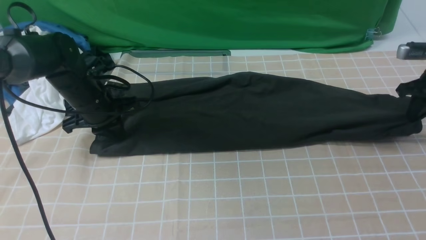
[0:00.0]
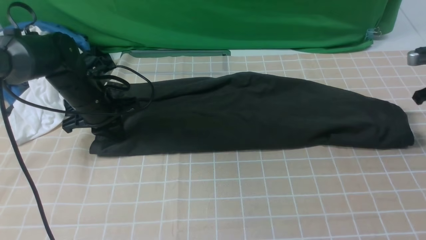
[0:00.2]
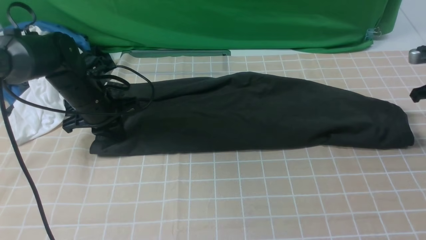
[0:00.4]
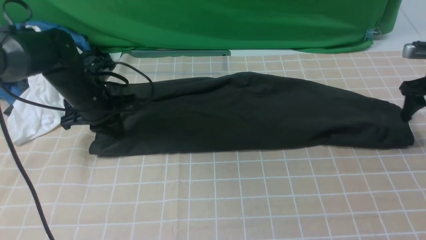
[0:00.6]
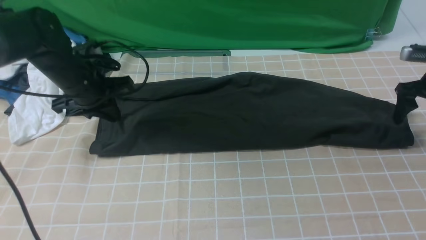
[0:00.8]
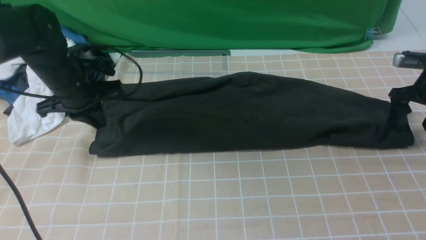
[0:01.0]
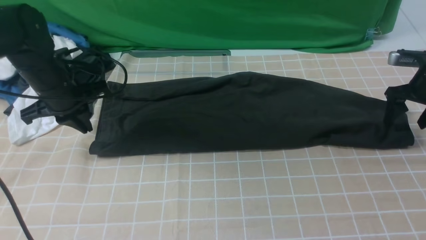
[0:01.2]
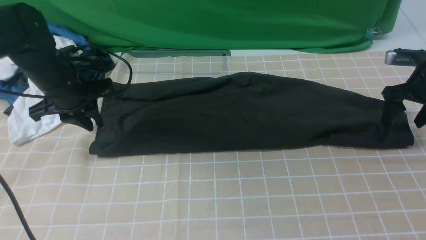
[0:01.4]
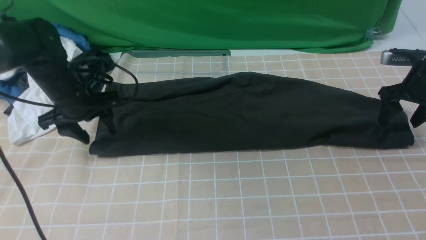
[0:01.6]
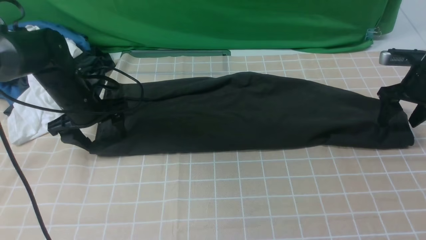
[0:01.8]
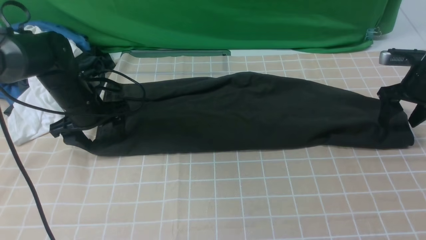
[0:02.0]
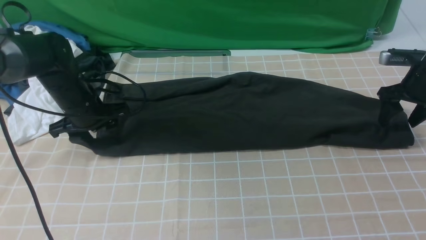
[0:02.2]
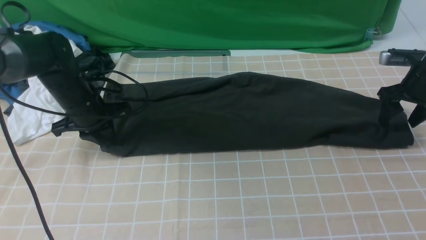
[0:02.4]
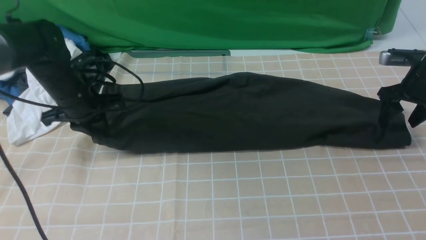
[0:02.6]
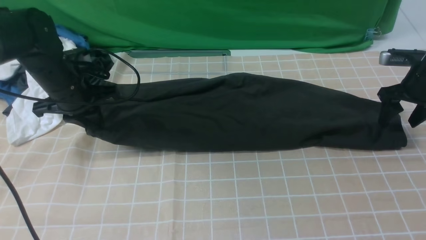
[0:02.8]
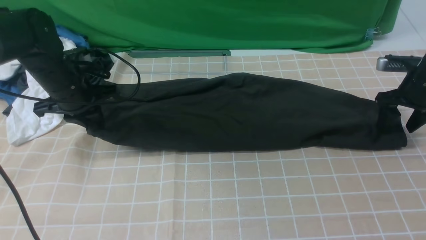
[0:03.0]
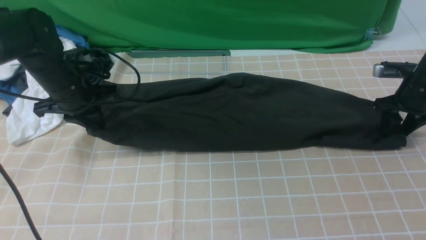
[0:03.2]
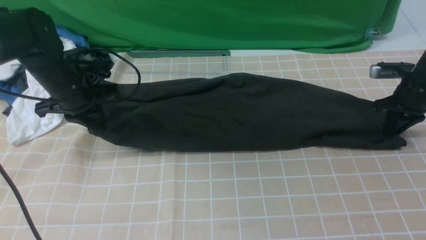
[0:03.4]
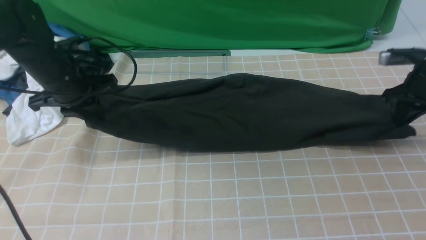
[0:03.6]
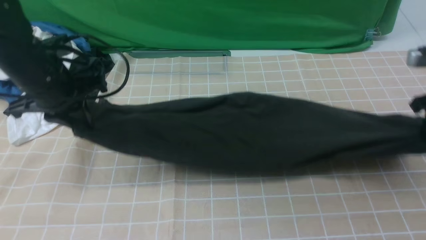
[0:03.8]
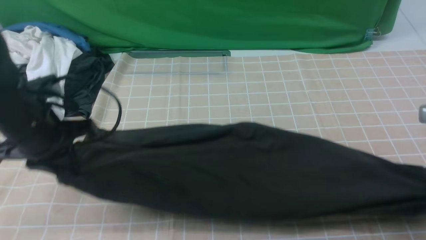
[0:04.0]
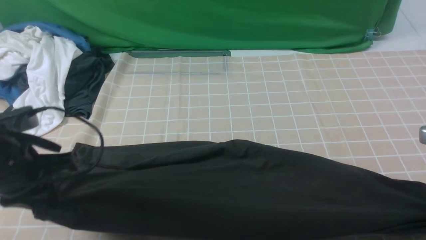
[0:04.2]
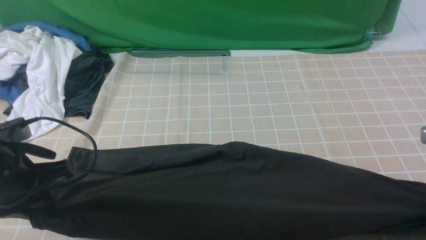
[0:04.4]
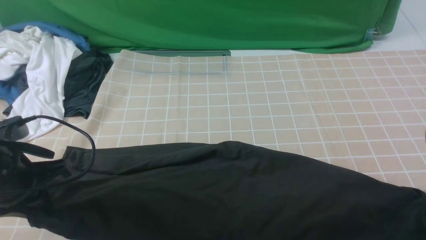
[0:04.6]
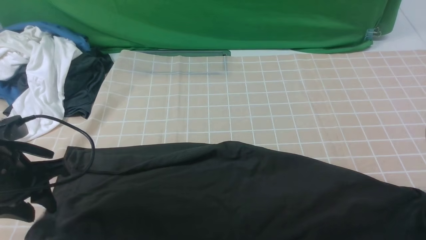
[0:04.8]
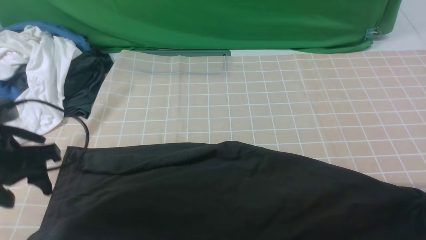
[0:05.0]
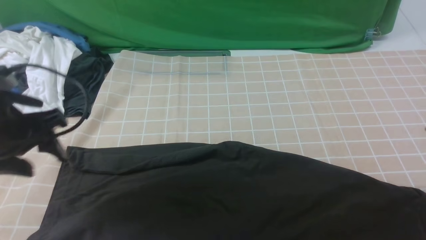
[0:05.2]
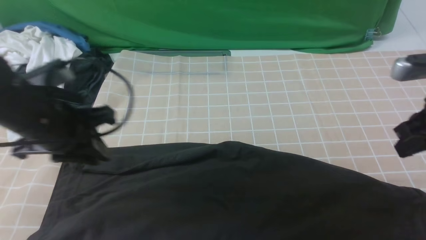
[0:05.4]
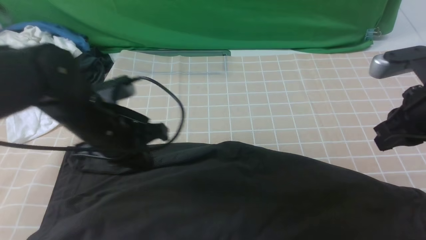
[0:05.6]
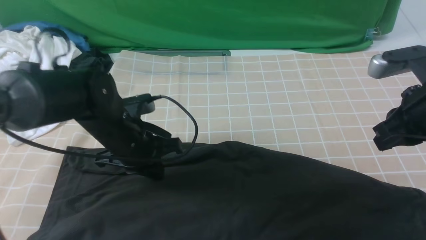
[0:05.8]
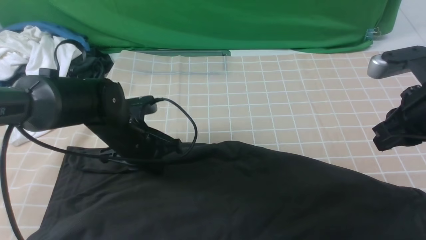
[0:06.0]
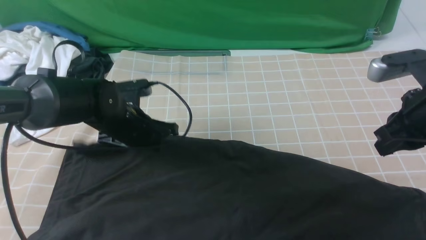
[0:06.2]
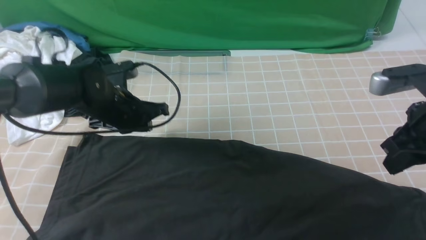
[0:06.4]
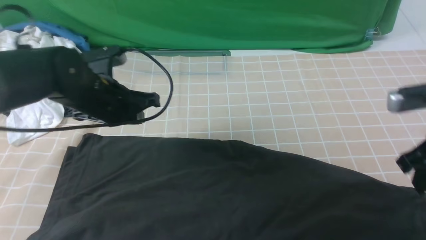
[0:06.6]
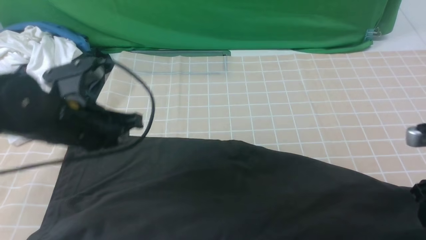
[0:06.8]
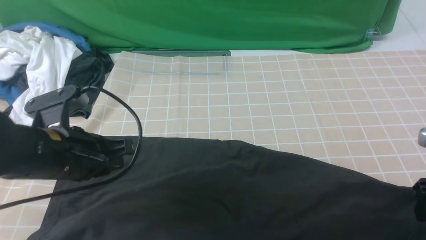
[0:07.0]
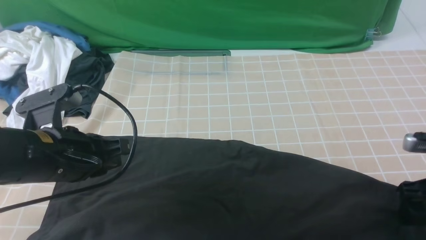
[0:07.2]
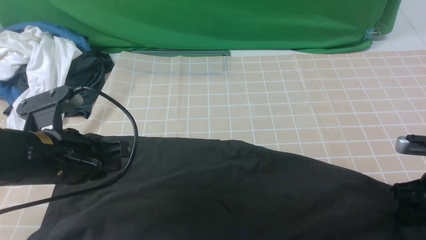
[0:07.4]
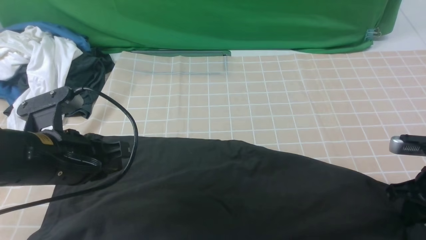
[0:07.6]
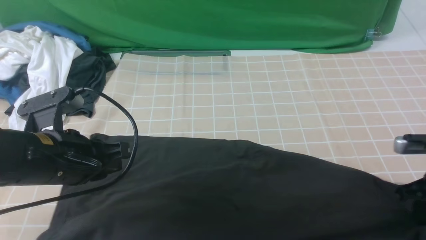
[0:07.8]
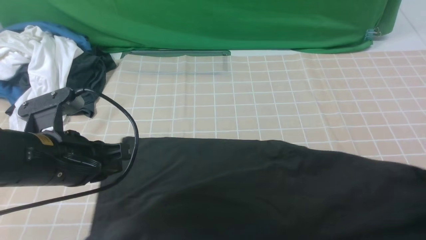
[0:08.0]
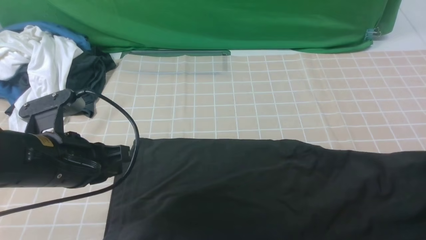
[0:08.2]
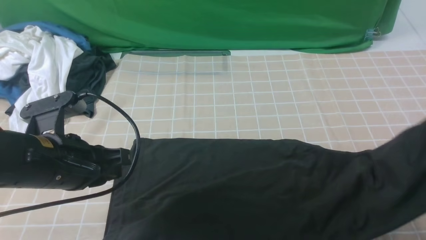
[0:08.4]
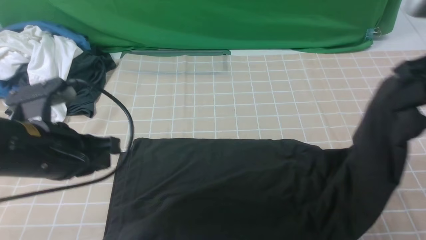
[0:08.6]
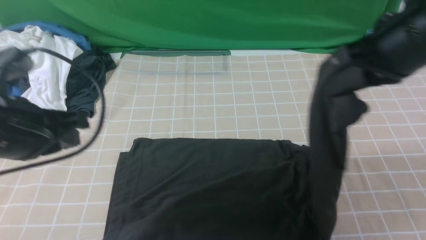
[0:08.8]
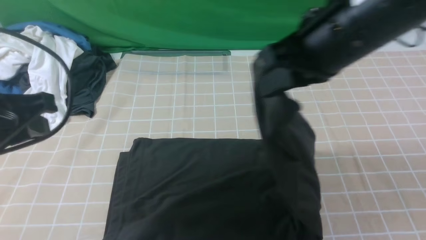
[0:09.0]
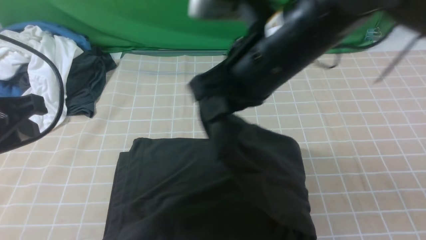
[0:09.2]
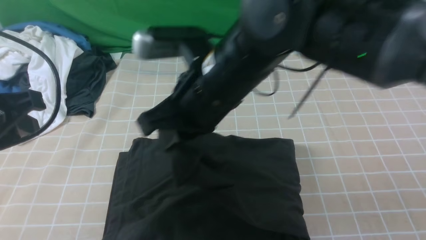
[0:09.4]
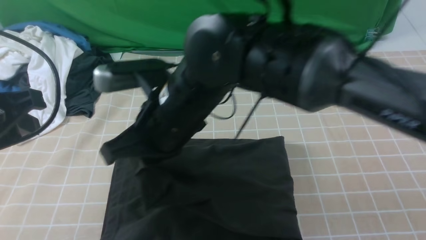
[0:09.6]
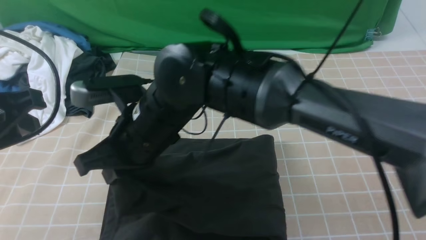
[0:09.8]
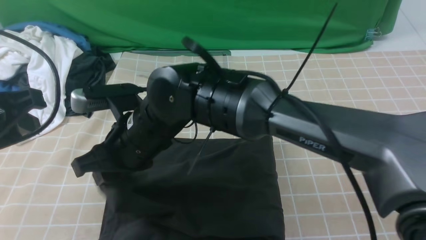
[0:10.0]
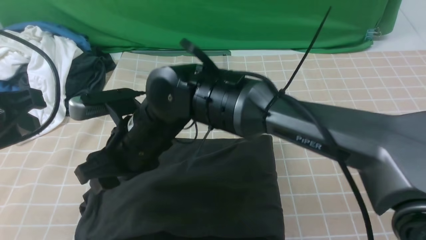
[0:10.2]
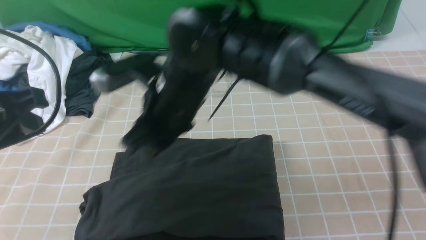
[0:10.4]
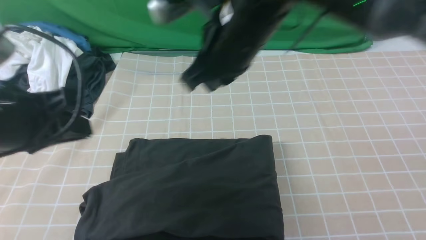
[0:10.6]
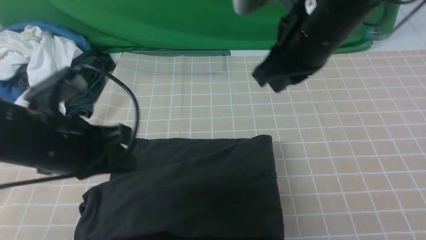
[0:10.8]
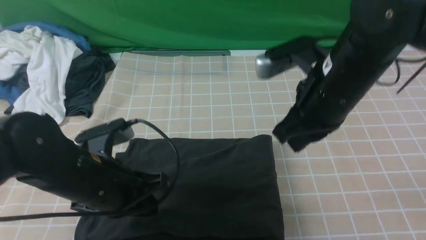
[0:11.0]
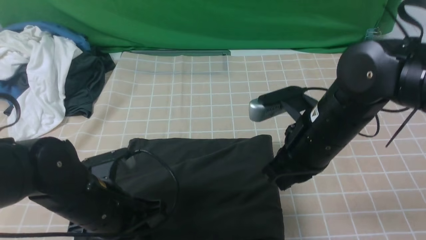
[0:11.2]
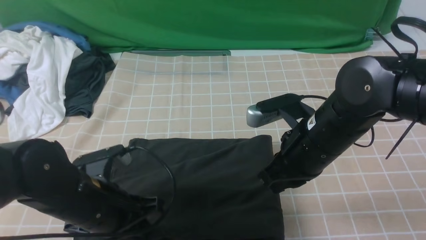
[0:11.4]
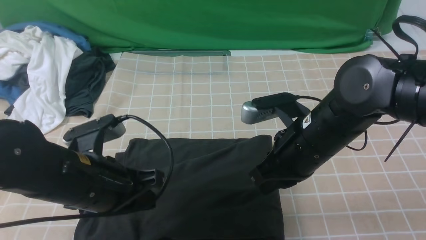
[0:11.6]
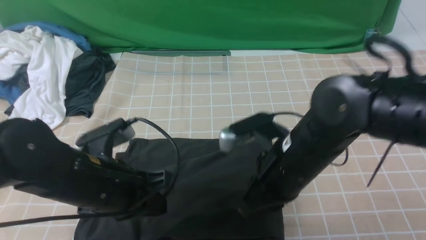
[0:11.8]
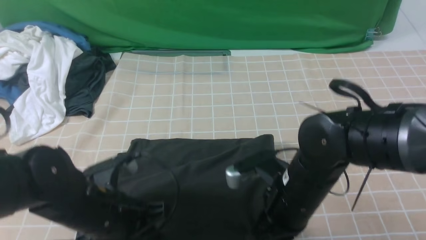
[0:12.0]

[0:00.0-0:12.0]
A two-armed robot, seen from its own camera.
Step, 0:00.0 to 0:07.8: use the right arm to clamp the right edge of the fabric.
Step, 0:08.2 to 0:10.0: use the right arm to drag the right edge of the fabric to the left and folds it over the left edge.
0:00.0 to 0:01.6: The right gripper opens up. Meanwhile the left gripper opens up.
0:01.6 to 0:03.0: The left gripper closes its fingers.
0:03.0 to 0:04.4: Both grippers travel together backward, about 20 cm. The right gripper closes its fingers.
0:04.4 to 0:06.0: The left gripper is displaced to the right, forward and downward by some 20 cm, and opens, then closes once more. Meanwhile the right gripper moves to the left and upward, about 15 cm, and opens, then closes once more.
0:06.0 to 0:07.6: The left gripper is displaced backward, upward and to the left by some 15 cm; the right gripper moves downward and to the right, approximately 15 cm, and opens, then closes again.
0:07.6 to 0:09.0: The left gripper shifts roughly 10 cm upward and to the left. The right gripper goes about 30 cm to the left and upward.
0:09.0 to 0:10.4: The right gripper heads to the left and downward, covering roughly 15 cm.
0:10.4 to 0:12.0: The right gripper shifts some 20 cm to the right, downward and backward. Meanwhile the left gripper goes about 20 cm downward and to the right.

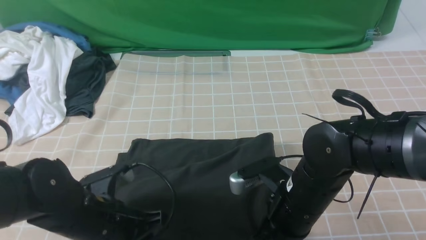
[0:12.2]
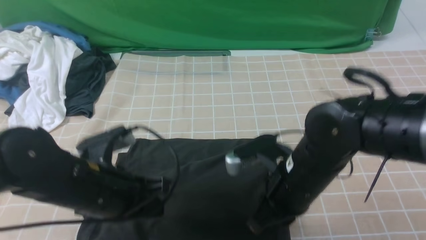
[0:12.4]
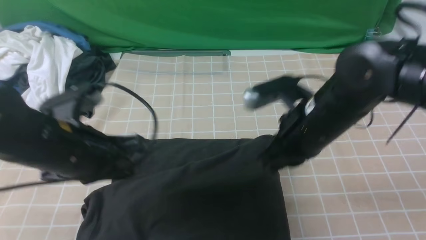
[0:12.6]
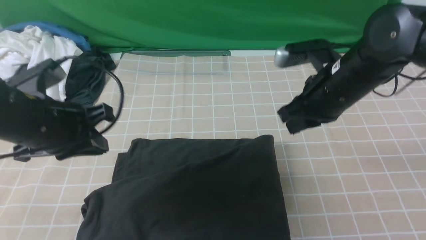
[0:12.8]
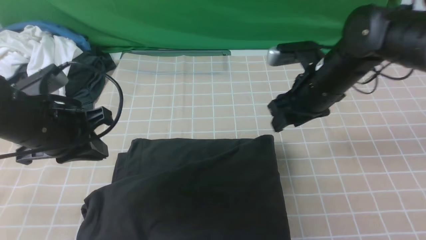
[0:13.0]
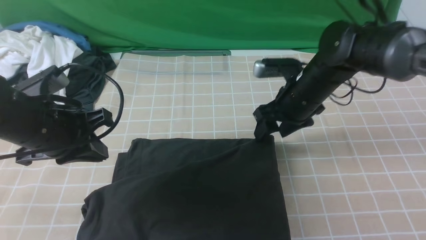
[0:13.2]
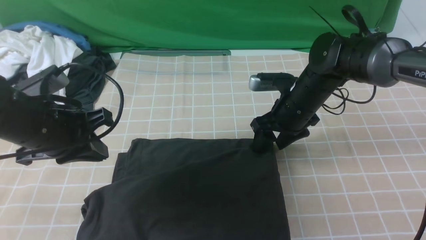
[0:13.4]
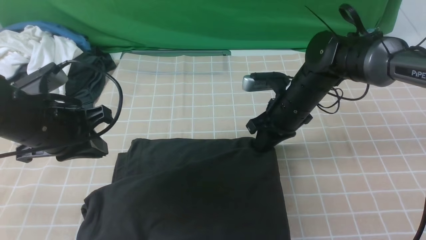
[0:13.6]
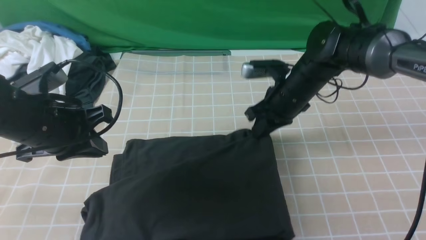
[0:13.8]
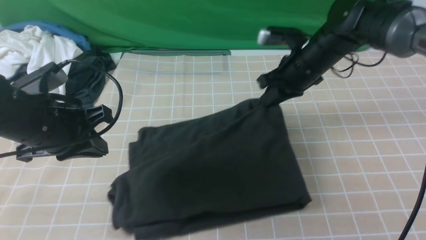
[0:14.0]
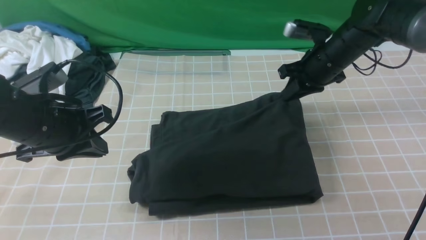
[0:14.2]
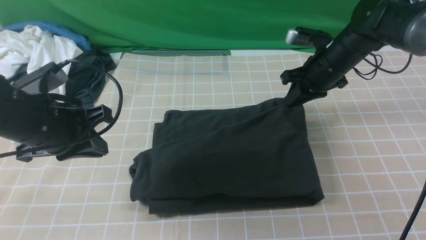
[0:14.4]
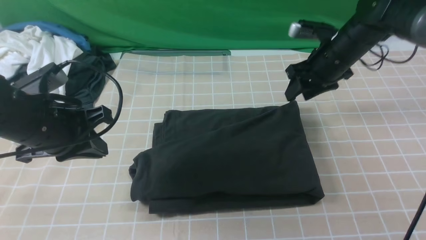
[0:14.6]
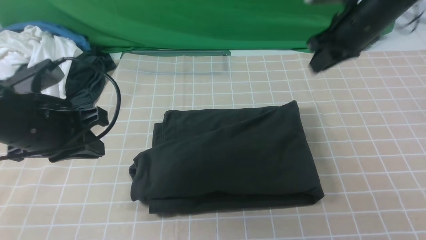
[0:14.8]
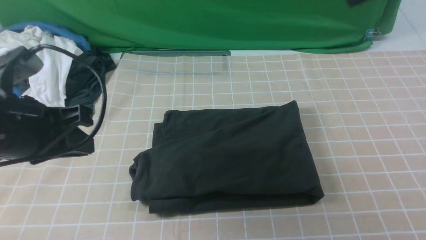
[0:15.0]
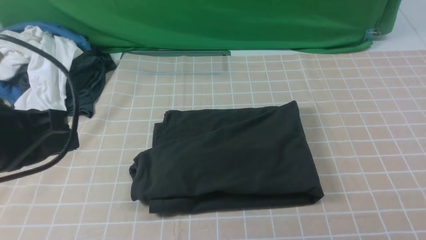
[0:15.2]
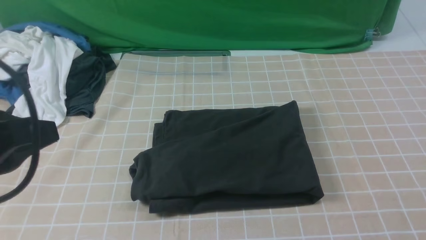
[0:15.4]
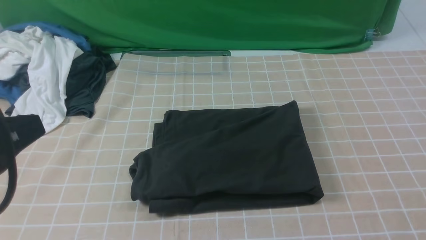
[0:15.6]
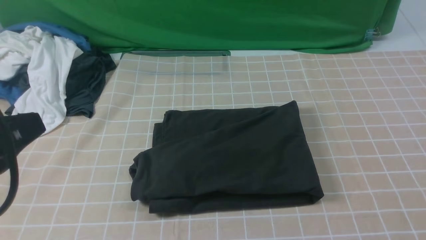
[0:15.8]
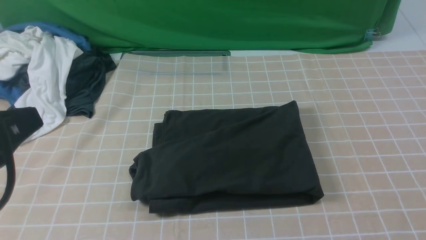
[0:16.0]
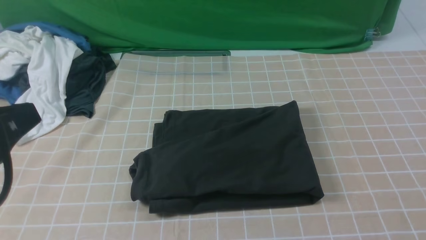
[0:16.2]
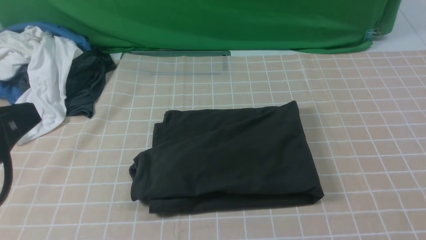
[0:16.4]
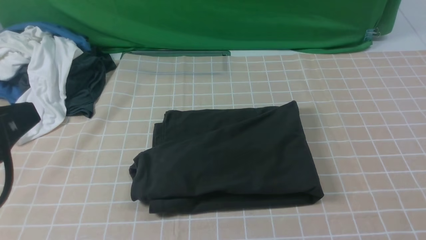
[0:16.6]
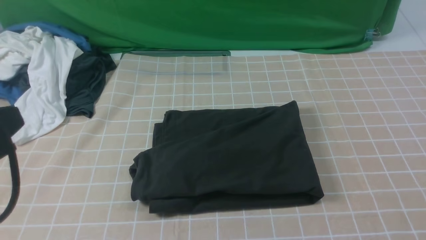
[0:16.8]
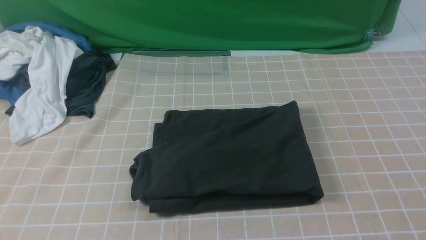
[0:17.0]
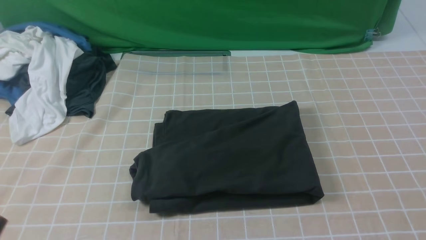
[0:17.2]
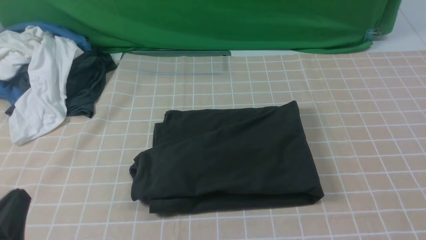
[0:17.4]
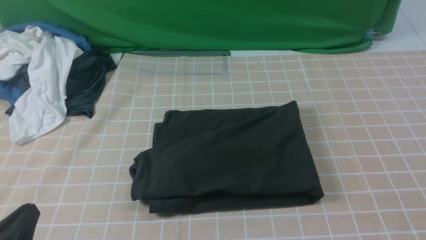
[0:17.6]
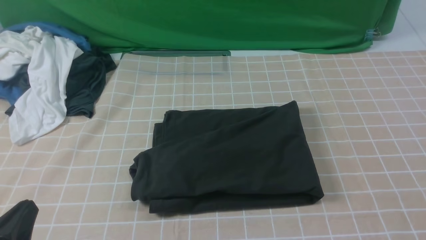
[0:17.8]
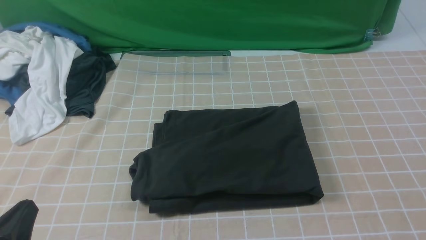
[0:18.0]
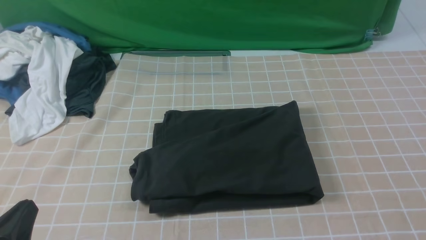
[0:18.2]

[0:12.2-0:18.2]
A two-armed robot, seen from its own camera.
0:12.2 to 0:13.8: The left gripper is displaced upward, to the left and forward by about 15 cm. The right gripper heads forward, covering some 20 cm, and opens, then closes once more.
0:13.8 to 0:15.2: The left gripper goes about 15 cm backward and upward. The right gripper is displaced upward and backward by approximately 35 cm.
0:15.2 to 0:16.6: The left gripper heads backward, covering approximately 5 cm.
0:16.6 to 0:18.2: The left gripper moves downward, approximately 15 cm.
